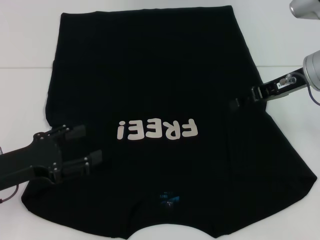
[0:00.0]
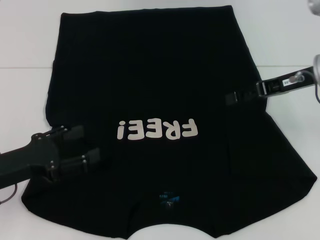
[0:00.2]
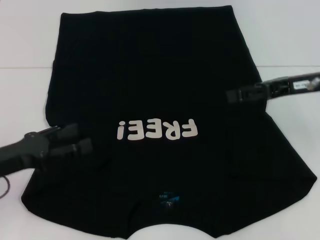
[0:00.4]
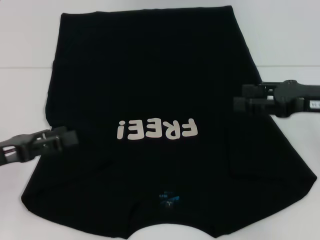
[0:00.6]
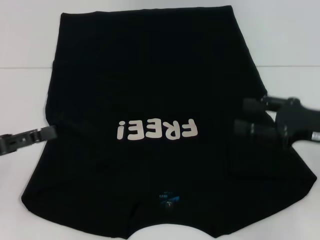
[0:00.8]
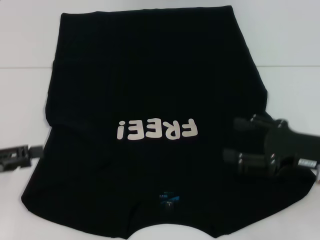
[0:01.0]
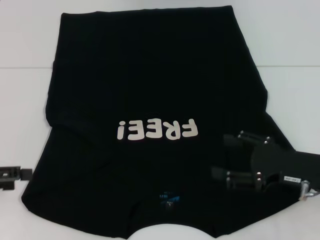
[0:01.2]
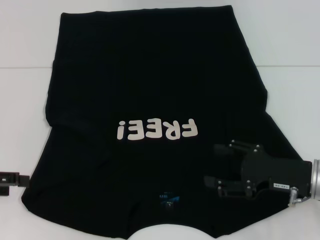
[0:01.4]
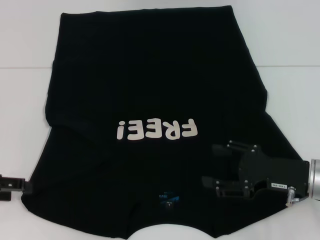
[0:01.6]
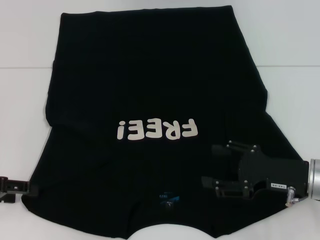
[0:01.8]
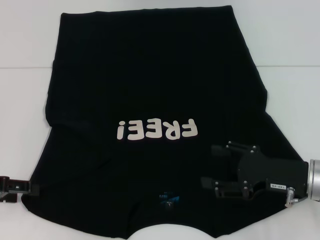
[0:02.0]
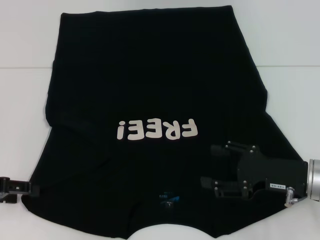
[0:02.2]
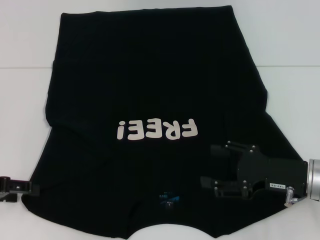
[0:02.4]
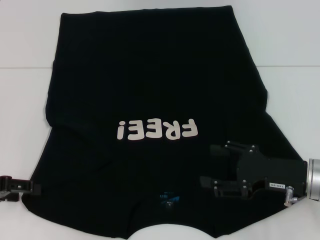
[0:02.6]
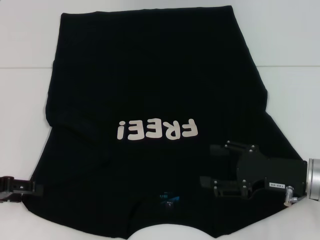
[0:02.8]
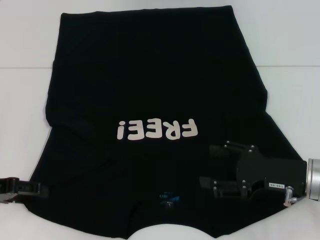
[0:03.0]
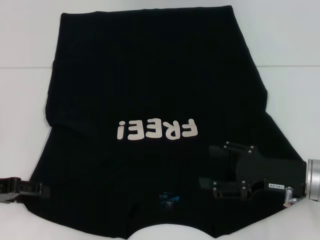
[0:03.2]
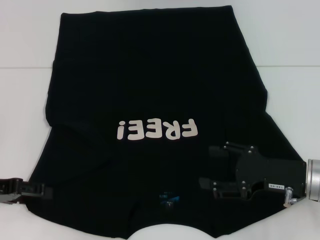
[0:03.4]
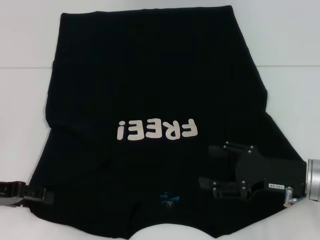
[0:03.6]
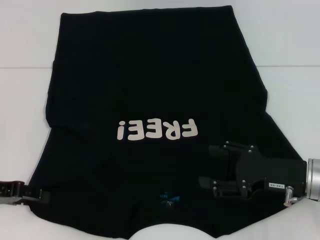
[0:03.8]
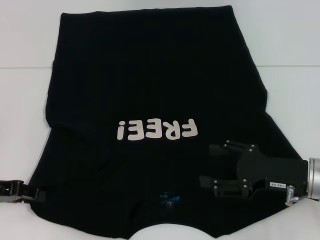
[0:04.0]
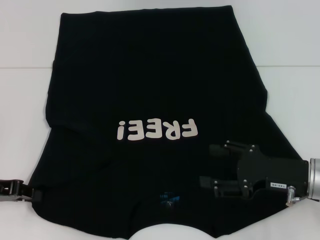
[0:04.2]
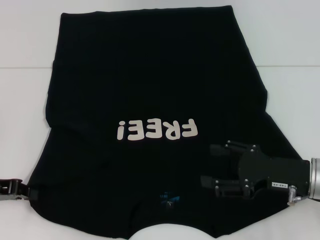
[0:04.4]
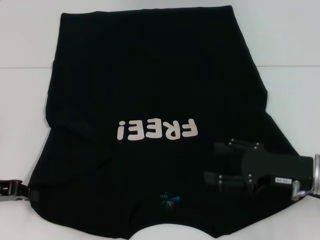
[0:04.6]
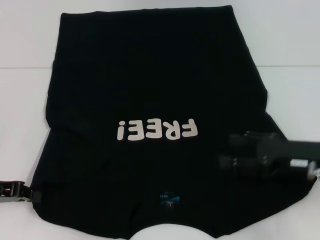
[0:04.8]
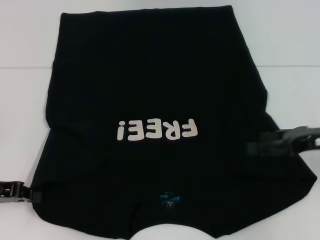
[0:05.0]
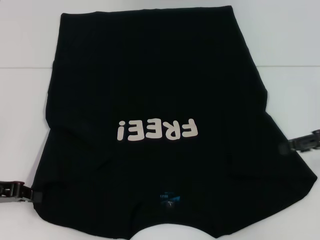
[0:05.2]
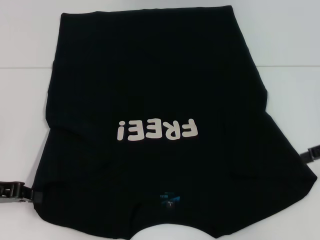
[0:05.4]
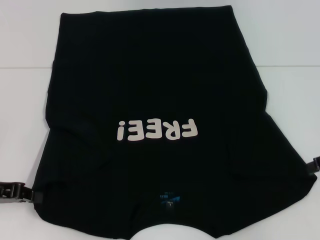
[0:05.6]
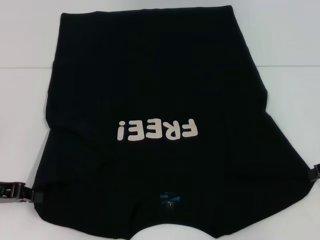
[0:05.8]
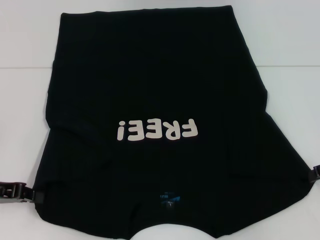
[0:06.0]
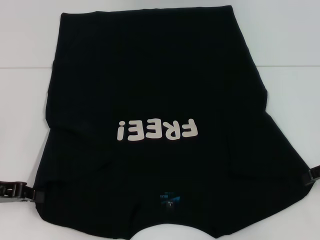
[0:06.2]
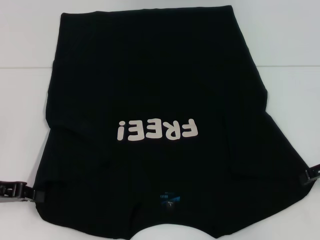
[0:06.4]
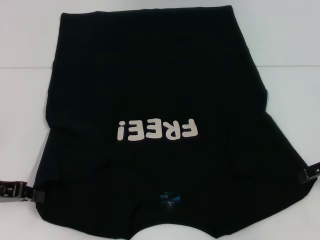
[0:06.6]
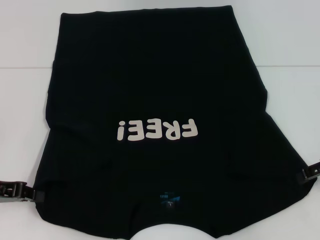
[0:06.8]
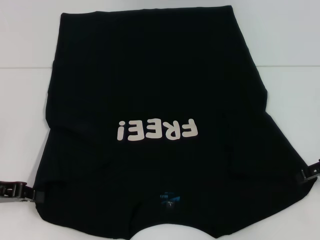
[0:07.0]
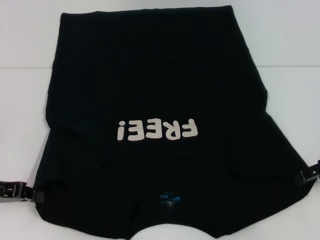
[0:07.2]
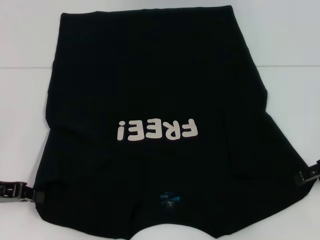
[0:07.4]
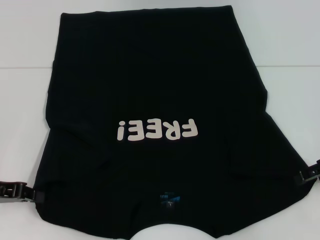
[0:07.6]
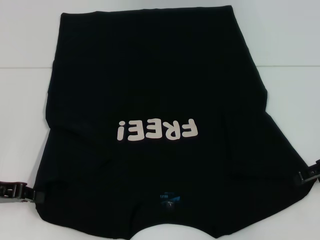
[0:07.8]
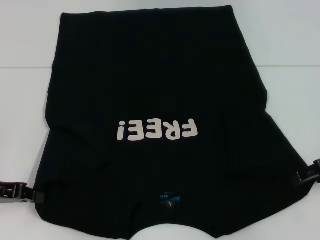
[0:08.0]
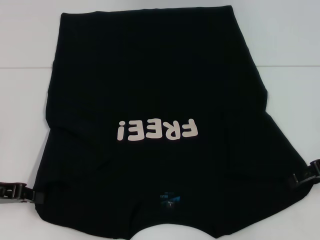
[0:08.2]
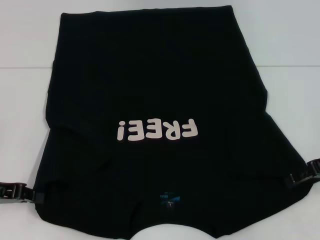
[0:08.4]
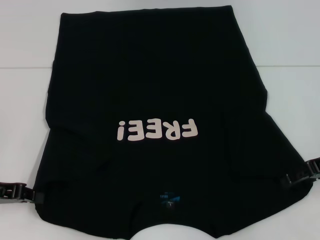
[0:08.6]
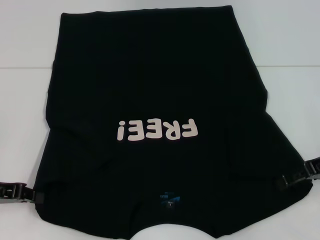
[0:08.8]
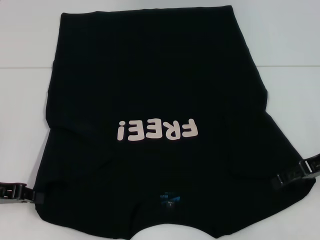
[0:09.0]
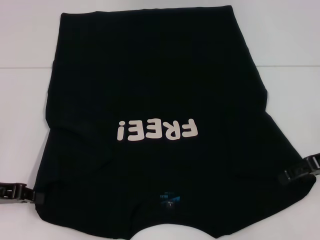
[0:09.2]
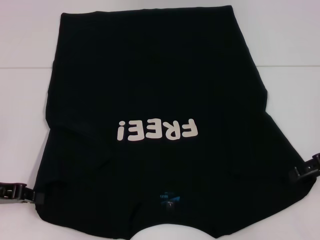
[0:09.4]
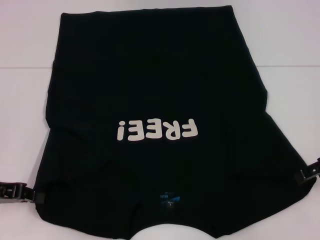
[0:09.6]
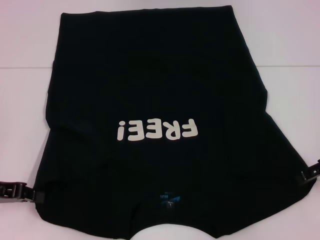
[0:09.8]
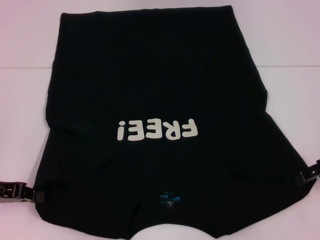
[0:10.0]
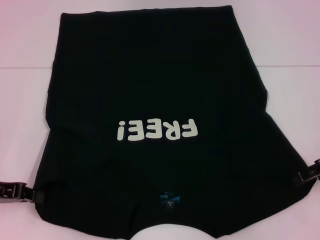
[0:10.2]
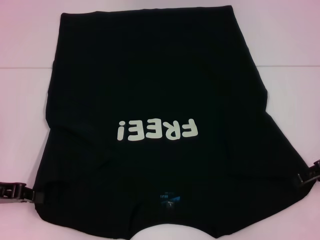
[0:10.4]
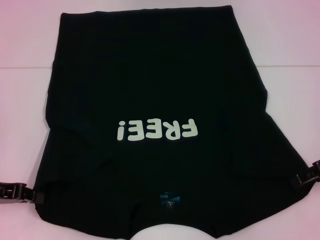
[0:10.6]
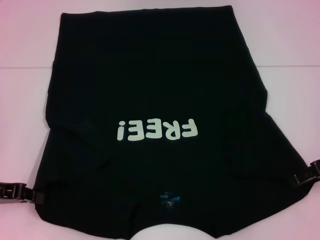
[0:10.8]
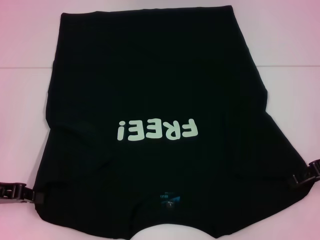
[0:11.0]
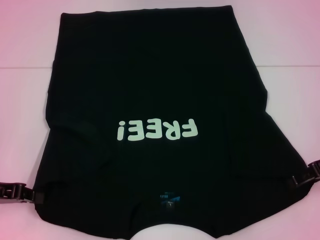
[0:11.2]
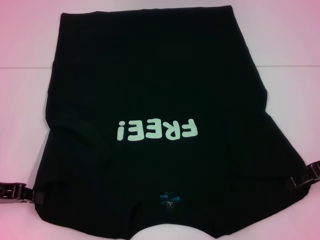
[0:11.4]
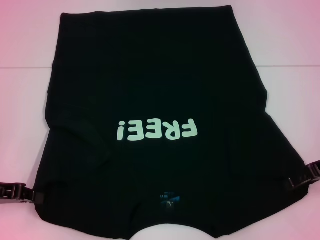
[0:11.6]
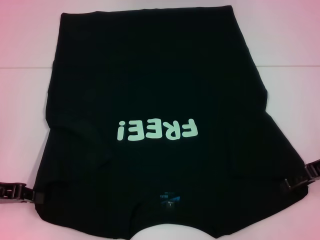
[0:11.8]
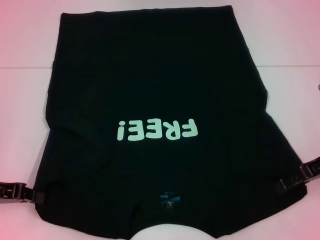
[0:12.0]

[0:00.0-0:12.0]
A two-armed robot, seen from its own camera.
Step, 0:00.4 to 0:04.4: Grab the bottom left corner with your left hand.
0:00.0 to 0:01.6: The left gripper heads to the left, covering approximately 10 cm, while the right gripper shifts roughly 20 cm backward and downward, and opens its fingers.
0:01.6 to 0:03.0: The grippers make only small movements.
0:03.0 to 0:04.4: The left gripper closes up.
0:04.4 to 0:06.0: The right gripper travels to the right and upward by roughly 15 cm.

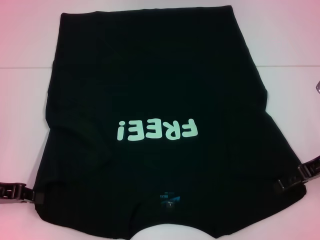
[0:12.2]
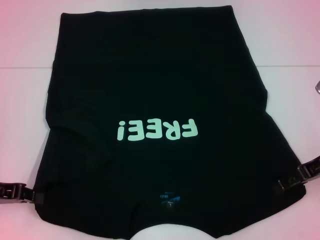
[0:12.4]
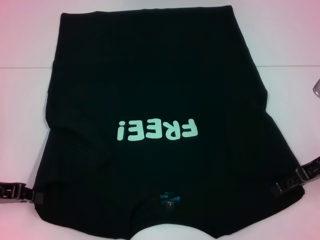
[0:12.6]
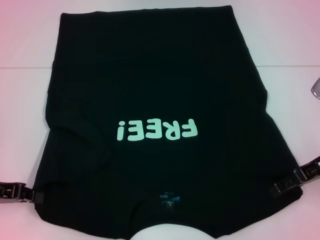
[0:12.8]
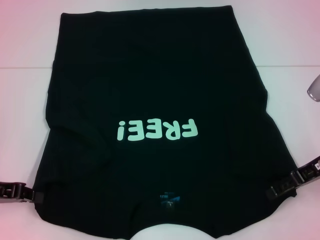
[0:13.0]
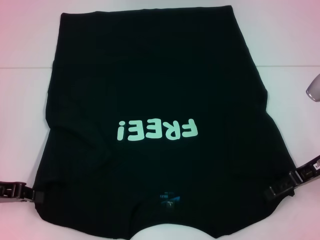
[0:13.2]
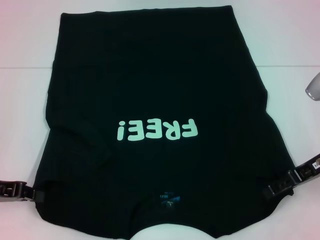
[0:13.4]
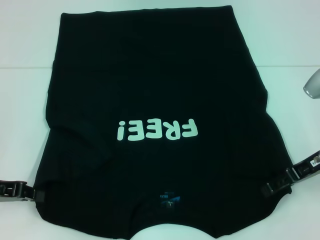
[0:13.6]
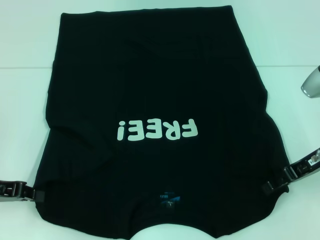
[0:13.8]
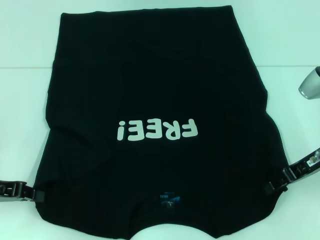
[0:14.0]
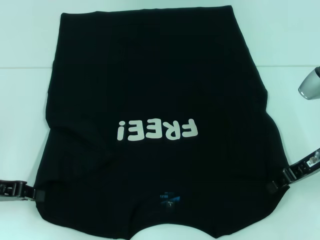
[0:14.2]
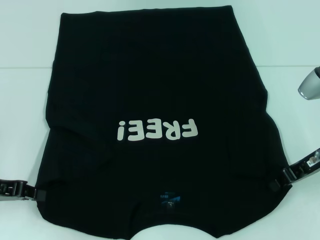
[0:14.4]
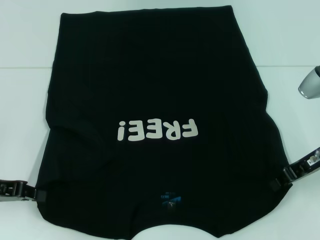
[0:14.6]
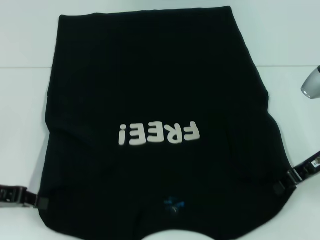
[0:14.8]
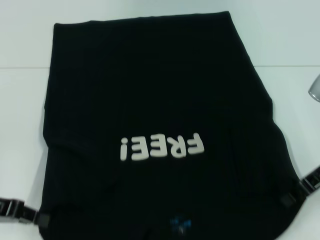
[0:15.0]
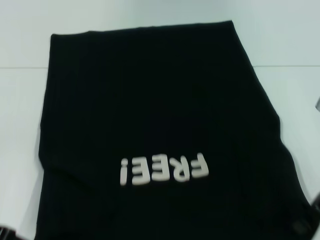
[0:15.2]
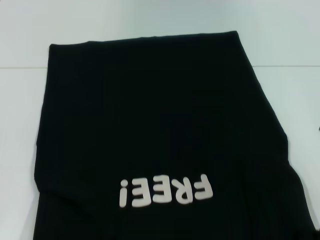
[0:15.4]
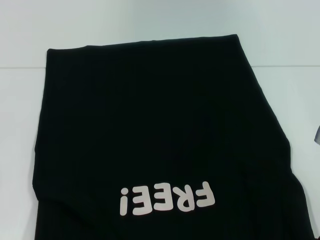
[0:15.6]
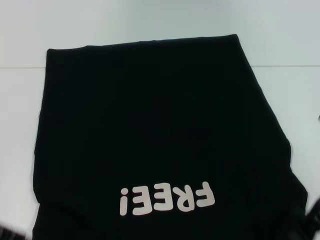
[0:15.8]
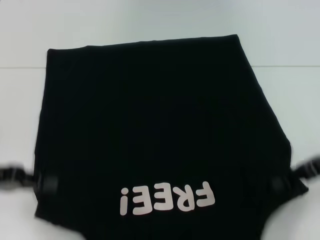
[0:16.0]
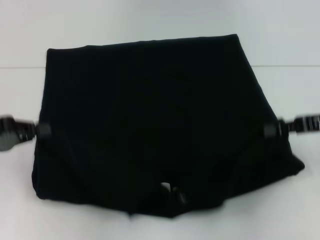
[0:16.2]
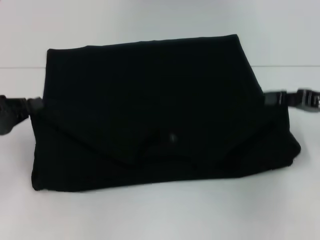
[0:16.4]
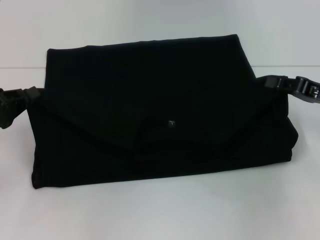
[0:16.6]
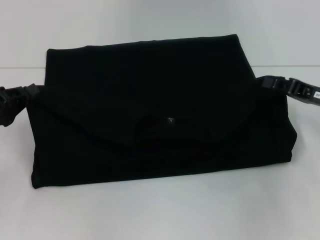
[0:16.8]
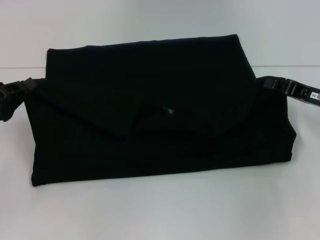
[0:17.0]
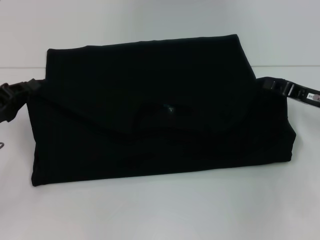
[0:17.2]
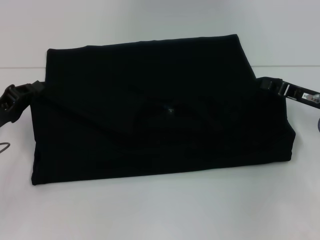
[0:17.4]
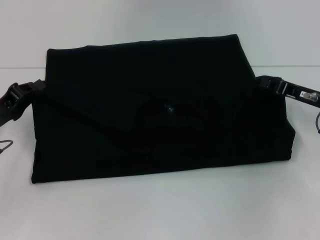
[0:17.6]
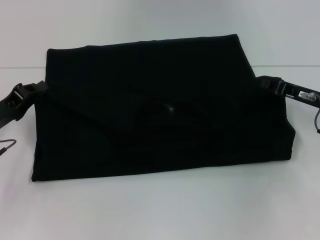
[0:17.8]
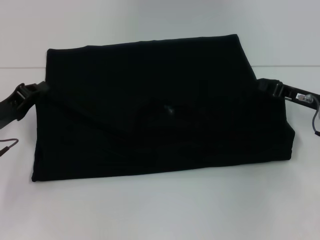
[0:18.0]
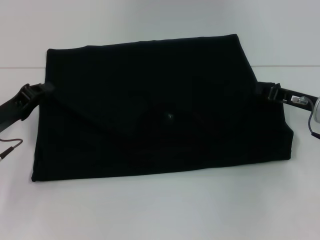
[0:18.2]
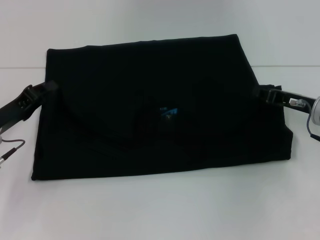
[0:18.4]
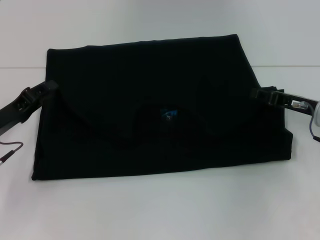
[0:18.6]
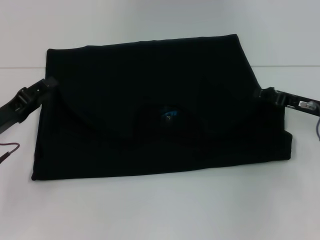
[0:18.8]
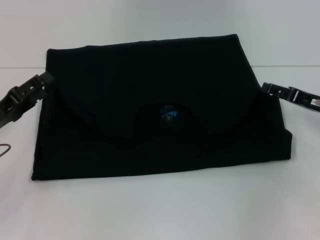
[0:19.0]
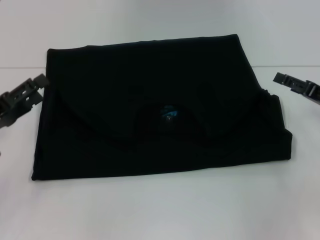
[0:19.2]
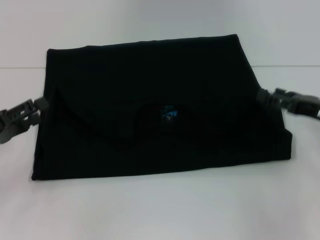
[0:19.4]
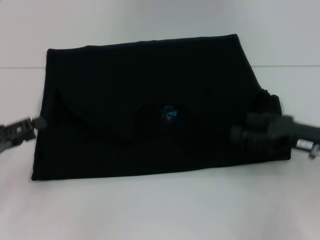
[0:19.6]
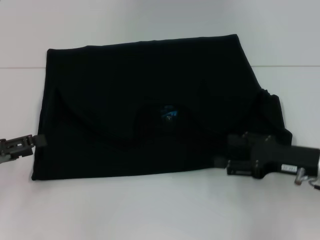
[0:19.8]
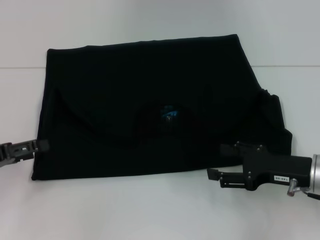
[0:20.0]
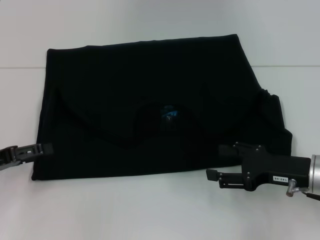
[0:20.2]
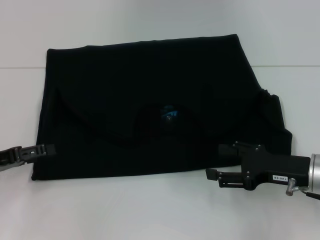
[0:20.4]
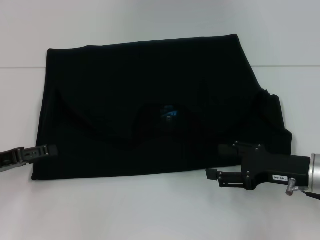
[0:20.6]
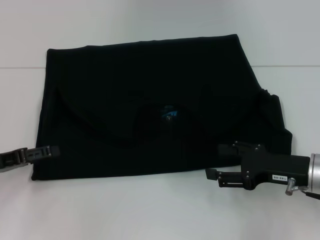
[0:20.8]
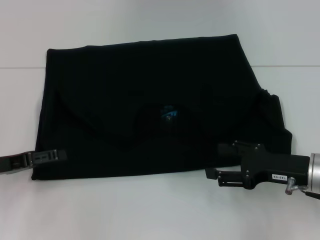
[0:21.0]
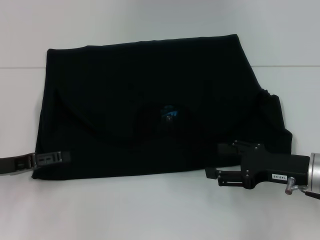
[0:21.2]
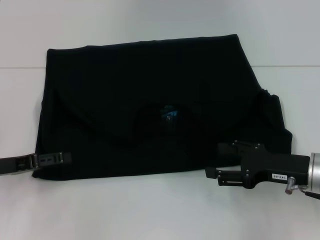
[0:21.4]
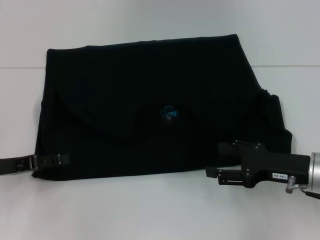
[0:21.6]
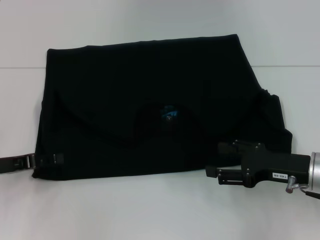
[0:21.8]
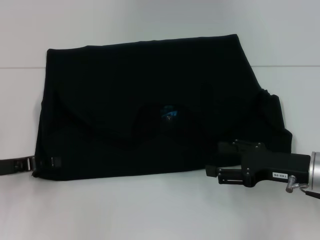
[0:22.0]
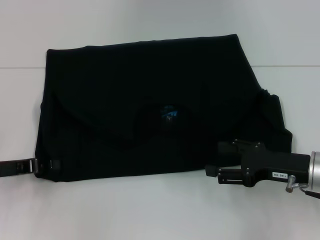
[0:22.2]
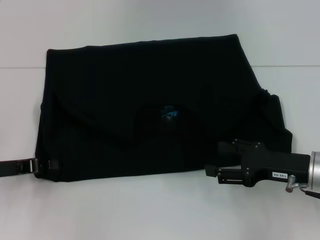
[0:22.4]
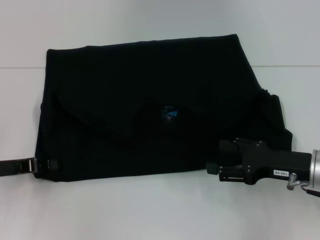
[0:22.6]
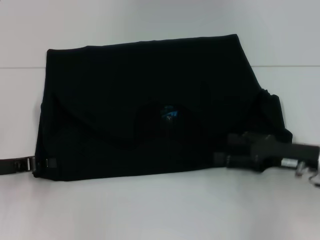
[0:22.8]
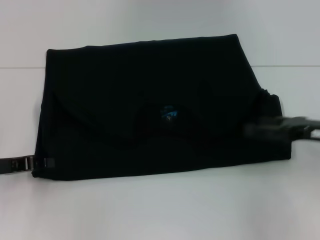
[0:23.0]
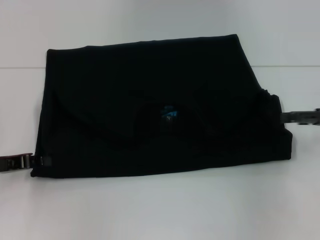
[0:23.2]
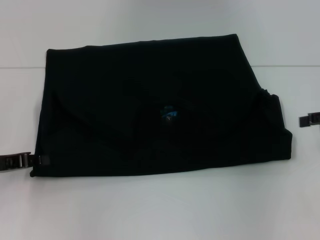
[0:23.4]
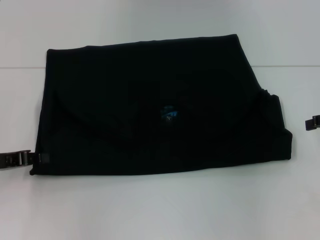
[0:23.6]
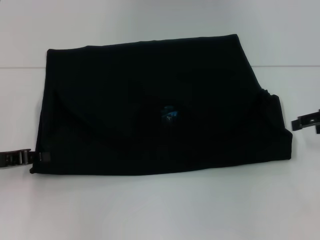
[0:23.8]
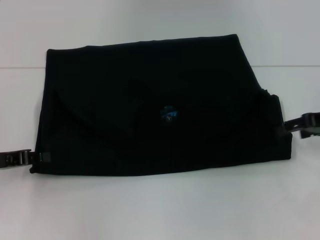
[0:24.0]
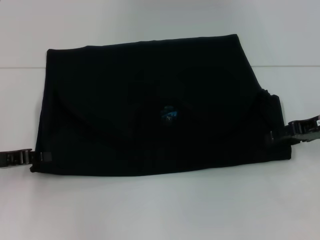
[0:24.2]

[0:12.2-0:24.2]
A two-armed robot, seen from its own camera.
Step, 0:12.2 to 0:14.6: Grab the bottom right corner with your right hand.
Step, 0:14.8 to 0:18.8: Fold the clothes with your left hand.
Step, 0:14.8 to 0:18.8: Fold the clothes with your right hand.
0:13.8 to 0:15.2: The right gripper closes.
0:16.6 to 0:18.2: The right gripper shifts by some 5 cm, while the left gripper ends up about 5 cm from where it was.
0:18.2 to 0:19.8: The right gripper heads backward, covering about 10 cm, and opens; the left gripper heads backward and to the left, covering approximately 10 cm, and opens its fingers.
0:19.8 to 0:21.2: The grippers make only small movements.
0:21.2 to 0:22.6: The left gripper closes.
0:22.6 to 0:24.2: The right gripper goes approximately 10 cm forward, upward and to the right.
